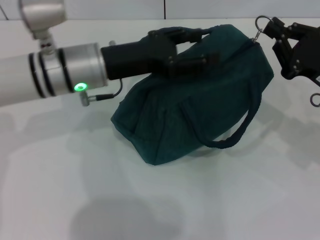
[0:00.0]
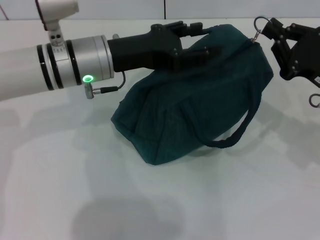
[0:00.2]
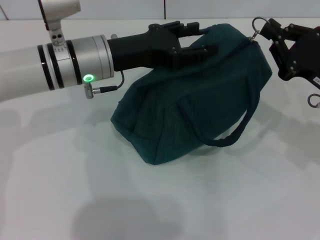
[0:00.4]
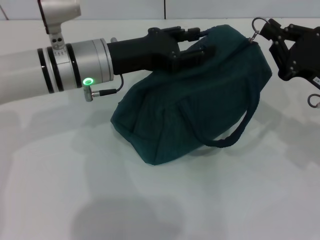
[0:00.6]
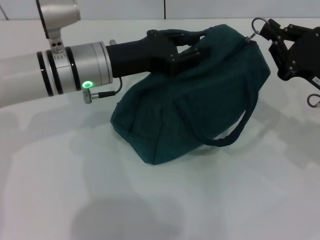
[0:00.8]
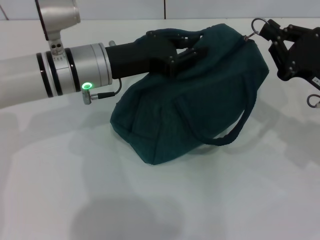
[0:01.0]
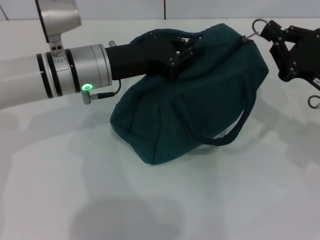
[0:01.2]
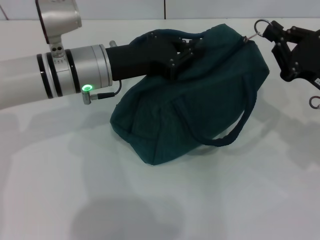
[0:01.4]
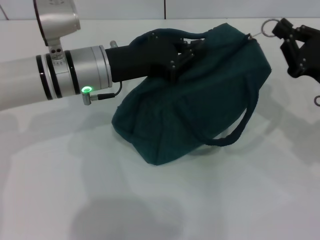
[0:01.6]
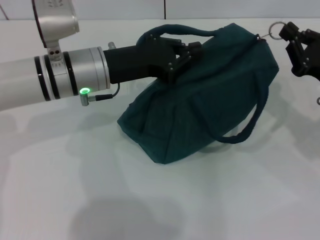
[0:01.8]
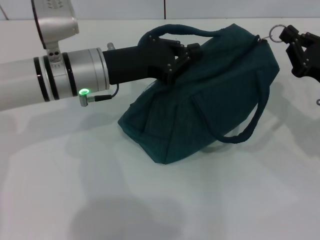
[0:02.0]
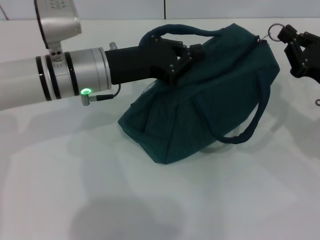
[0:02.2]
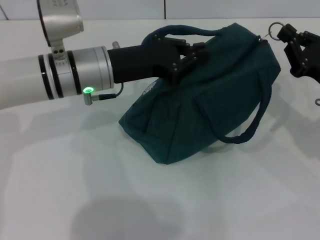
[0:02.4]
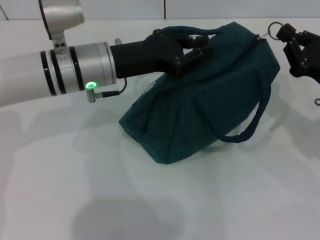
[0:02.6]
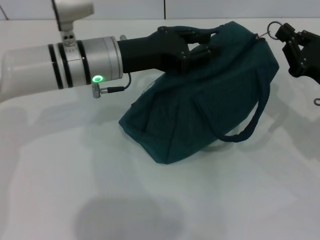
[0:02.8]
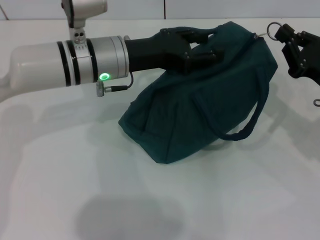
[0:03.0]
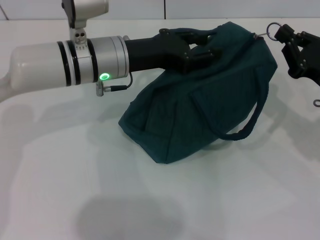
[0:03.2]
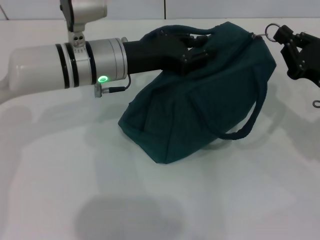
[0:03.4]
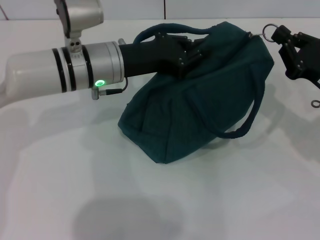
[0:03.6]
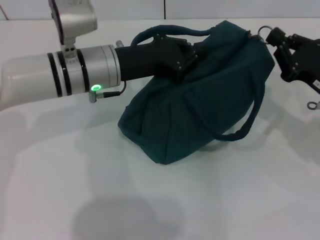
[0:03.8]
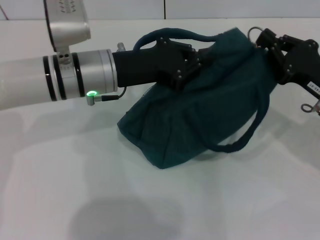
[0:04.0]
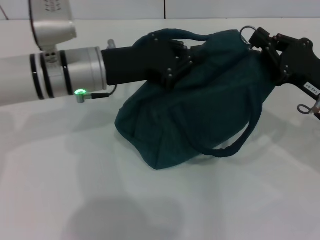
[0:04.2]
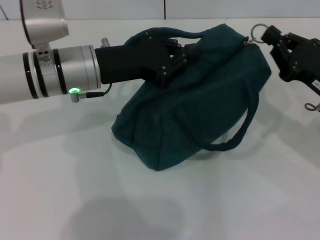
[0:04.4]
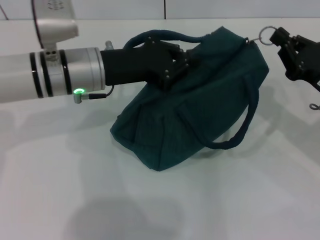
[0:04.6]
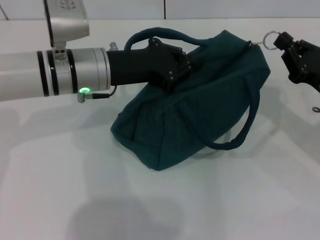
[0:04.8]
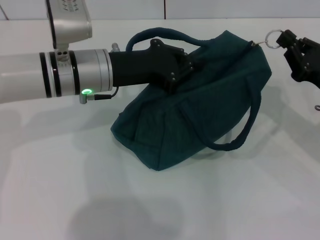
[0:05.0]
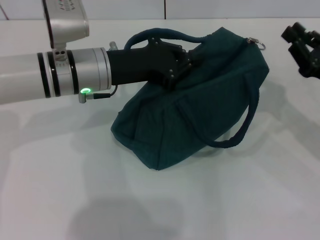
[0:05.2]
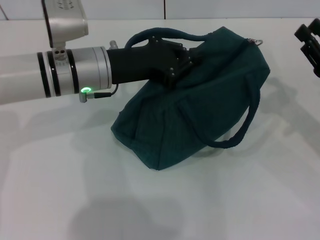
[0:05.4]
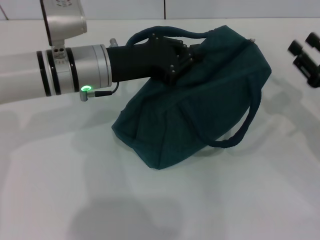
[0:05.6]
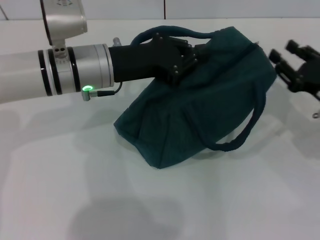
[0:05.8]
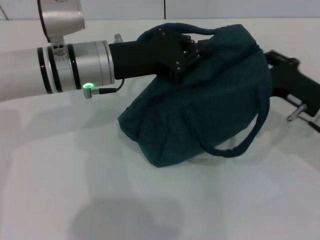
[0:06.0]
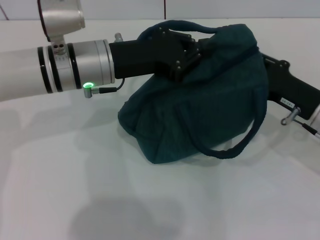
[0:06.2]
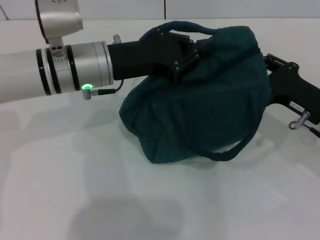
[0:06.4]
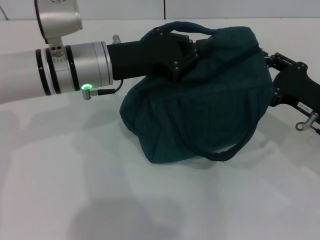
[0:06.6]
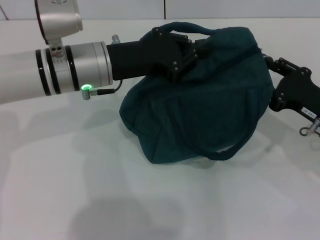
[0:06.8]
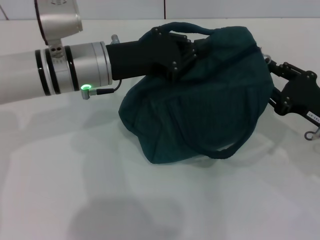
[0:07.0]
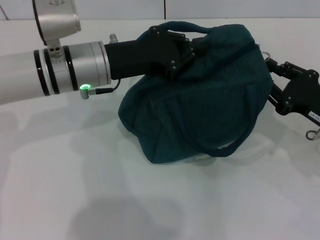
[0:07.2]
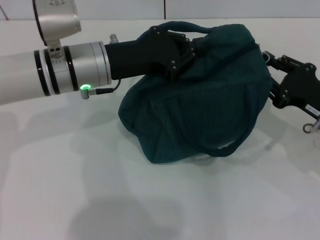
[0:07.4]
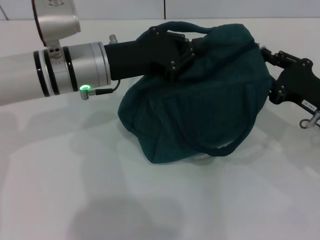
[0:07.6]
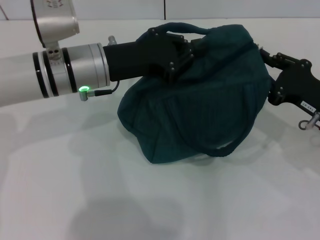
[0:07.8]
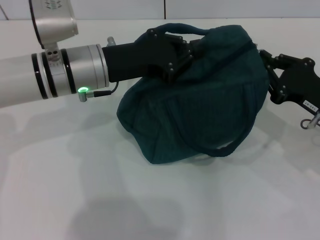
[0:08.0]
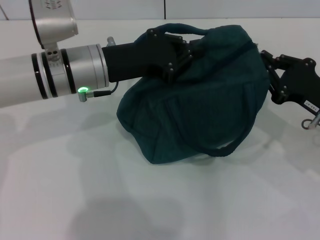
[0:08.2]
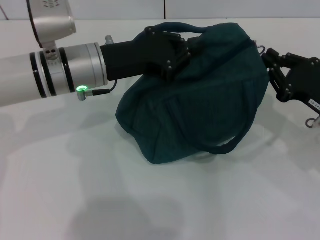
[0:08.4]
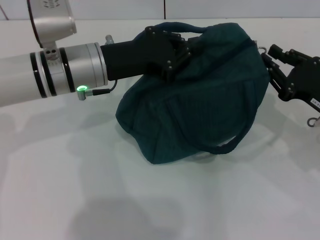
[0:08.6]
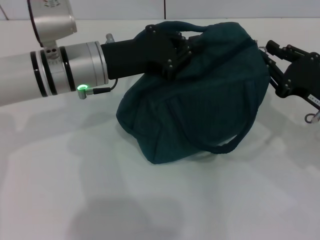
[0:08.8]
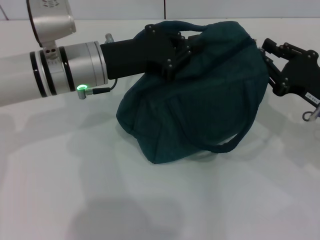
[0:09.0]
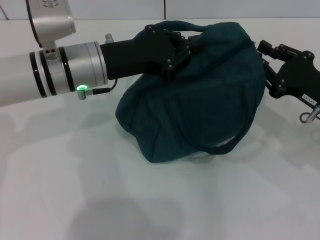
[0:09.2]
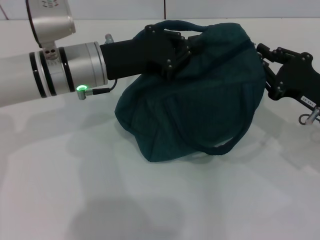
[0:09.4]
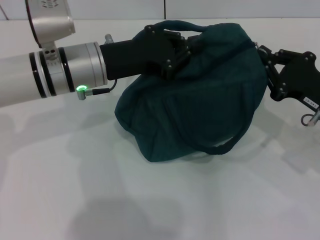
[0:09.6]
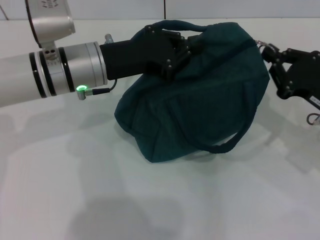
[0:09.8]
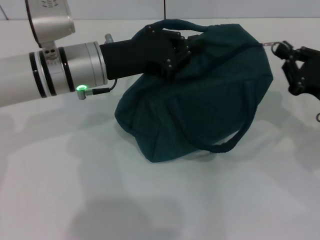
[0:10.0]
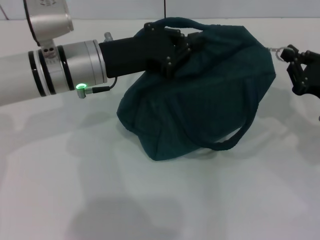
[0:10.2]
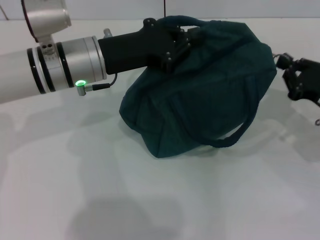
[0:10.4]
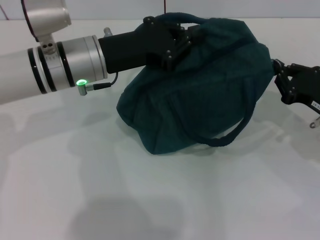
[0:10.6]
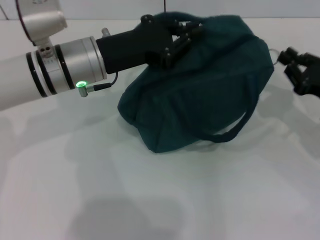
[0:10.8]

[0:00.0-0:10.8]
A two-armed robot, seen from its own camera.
Step, 0:00.0 to 0:10.6: Hold the lunch bag with your left hand.
0:00.0 to 0:01.6: The left gripper closes its fingers.
0:01.6 to 0:03.0: The left gripper opens its fingers.
0:03.0 to 0:04.6: The left gripper closes.
0:04.6 to 0:06.2: The right gripper opens up.
0:06.2 to 0:07.8: The grippers stay close to where they were, moving slightly.
0:07.8 to 0:09.2: Both grippers stay about where they are.
0:09.2 to 0:10.8: The grippers move only a little.

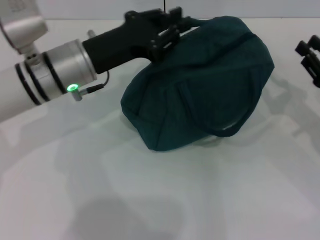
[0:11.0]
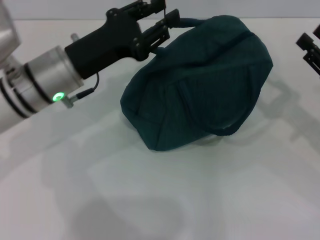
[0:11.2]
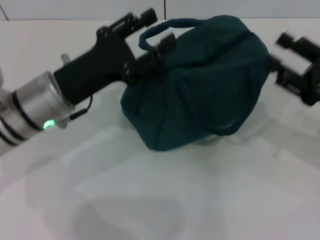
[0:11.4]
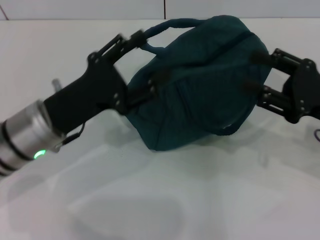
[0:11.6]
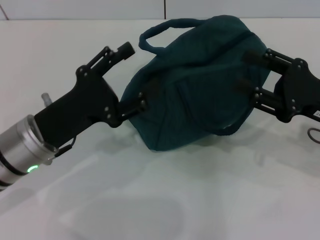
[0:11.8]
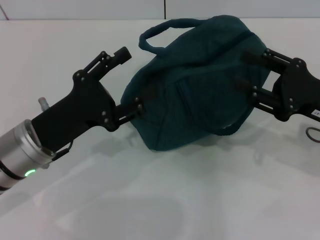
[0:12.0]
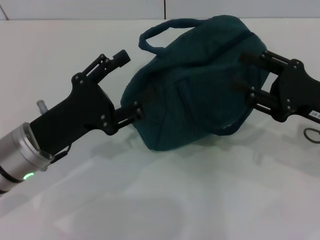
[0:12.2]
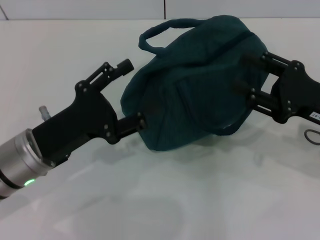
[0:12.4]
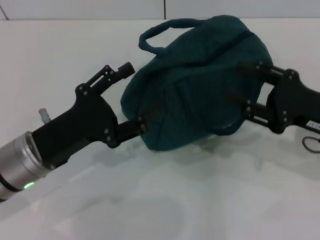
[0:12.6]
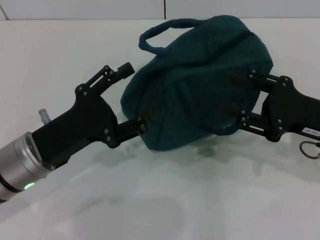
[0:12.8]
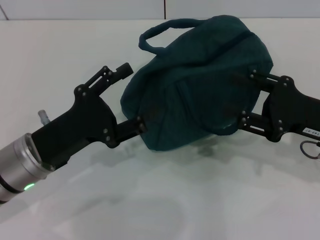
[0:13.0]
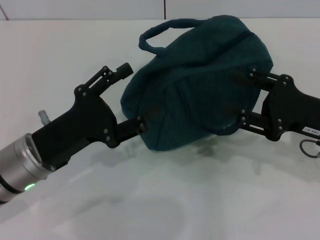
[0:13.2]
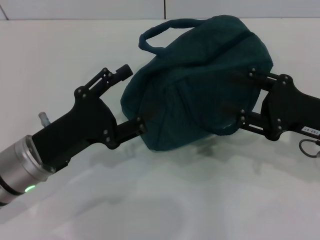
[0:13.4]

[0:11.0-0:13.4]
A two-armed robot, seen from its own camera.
0:11.0 to 0:12.2: The left gripper goes approximately 10 cm backward, and opens; the right gripper moves to the left, about 5 cm, and opens.
0:12.2 to 0:13.4: The grippers stay close to where they were, moving slightly.

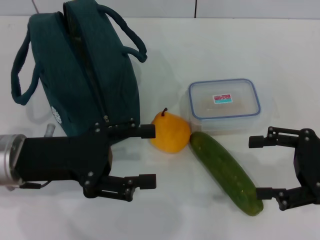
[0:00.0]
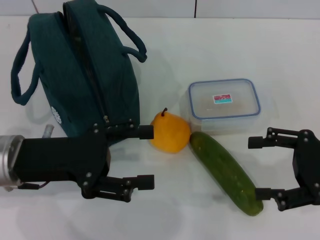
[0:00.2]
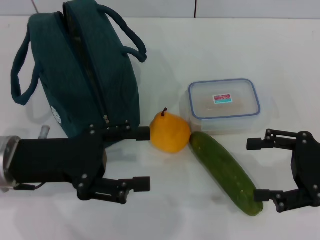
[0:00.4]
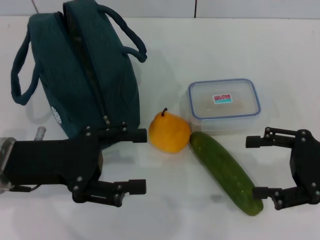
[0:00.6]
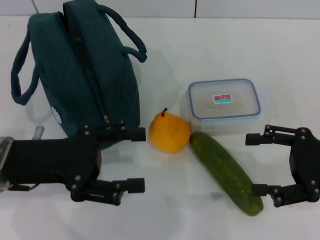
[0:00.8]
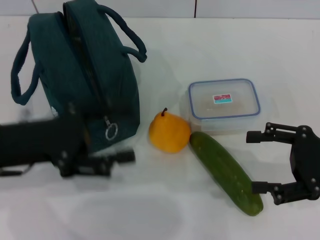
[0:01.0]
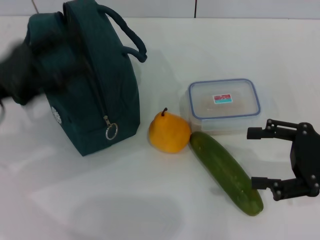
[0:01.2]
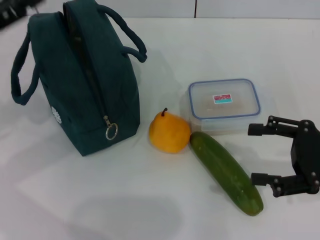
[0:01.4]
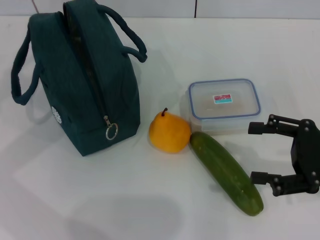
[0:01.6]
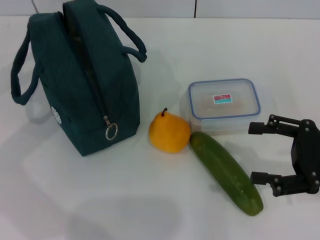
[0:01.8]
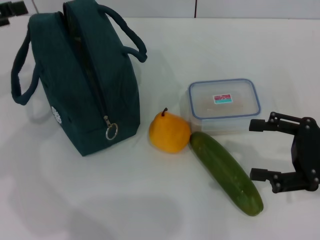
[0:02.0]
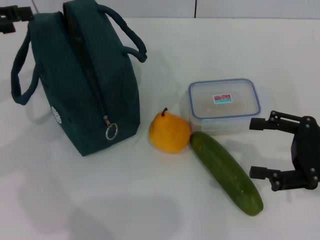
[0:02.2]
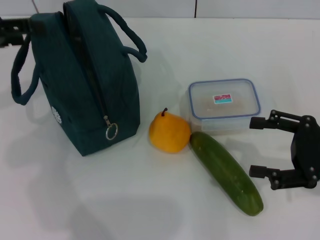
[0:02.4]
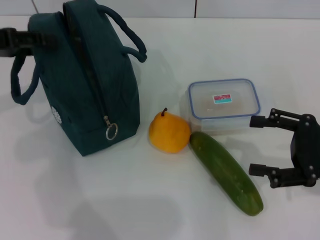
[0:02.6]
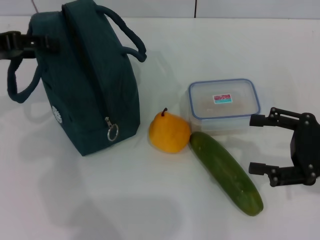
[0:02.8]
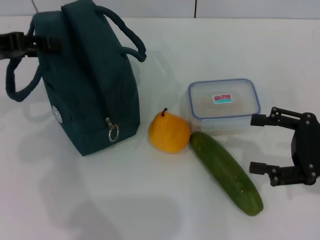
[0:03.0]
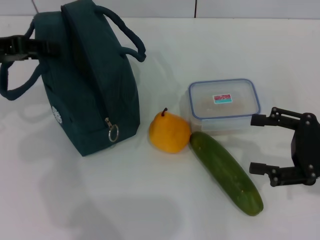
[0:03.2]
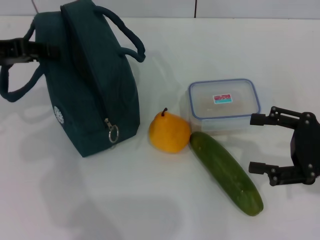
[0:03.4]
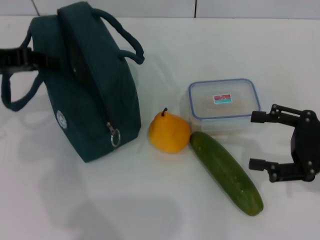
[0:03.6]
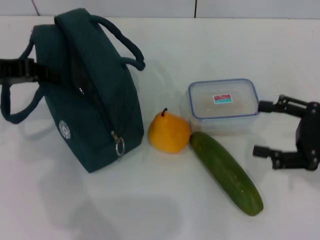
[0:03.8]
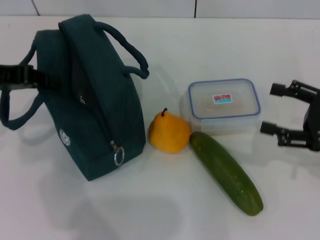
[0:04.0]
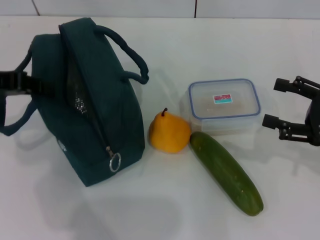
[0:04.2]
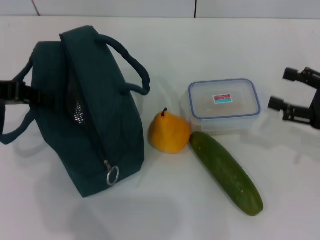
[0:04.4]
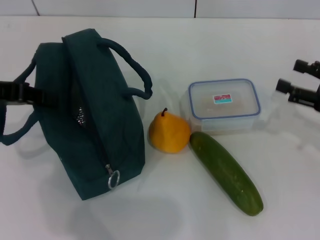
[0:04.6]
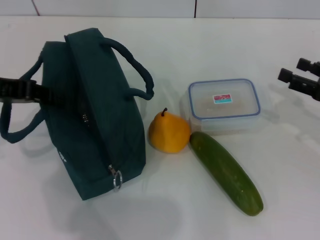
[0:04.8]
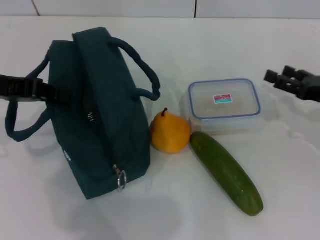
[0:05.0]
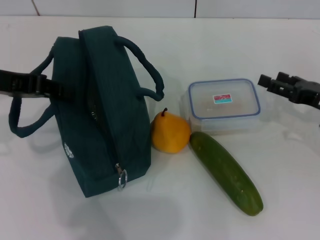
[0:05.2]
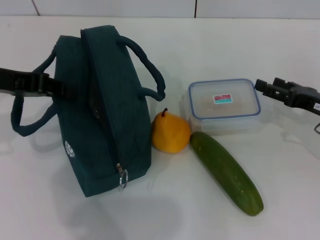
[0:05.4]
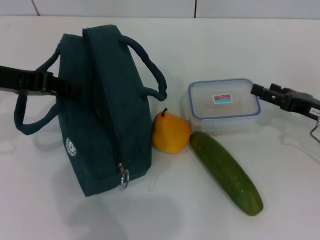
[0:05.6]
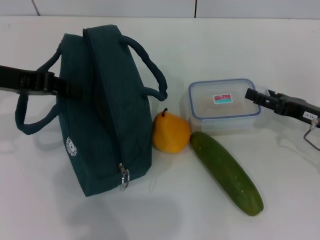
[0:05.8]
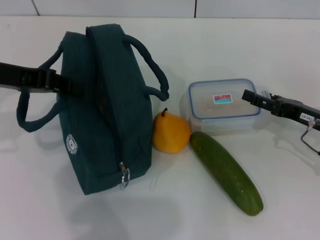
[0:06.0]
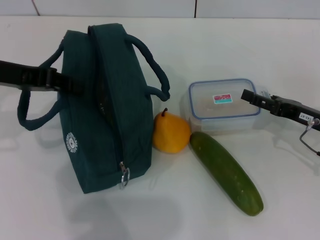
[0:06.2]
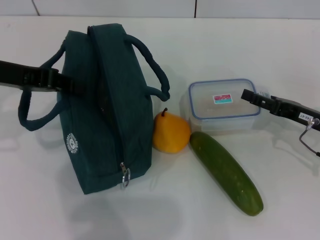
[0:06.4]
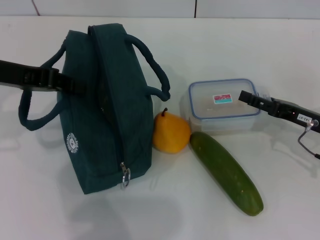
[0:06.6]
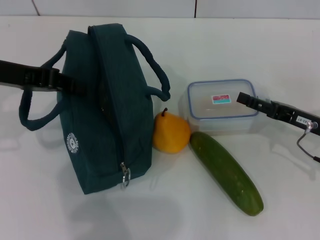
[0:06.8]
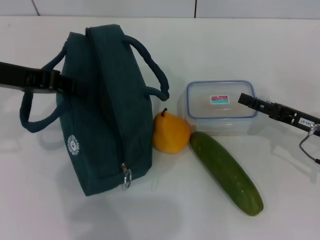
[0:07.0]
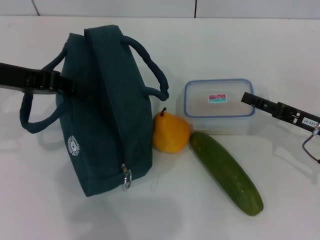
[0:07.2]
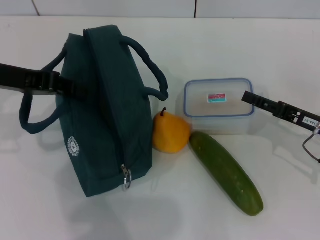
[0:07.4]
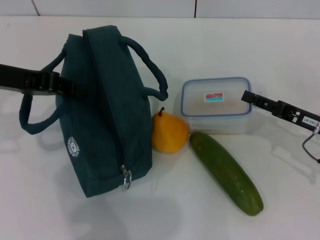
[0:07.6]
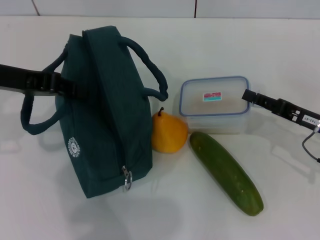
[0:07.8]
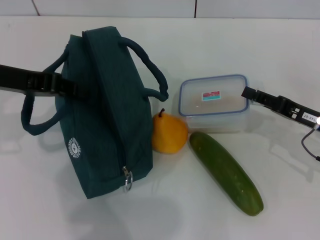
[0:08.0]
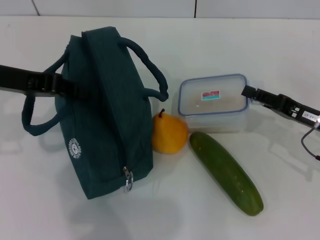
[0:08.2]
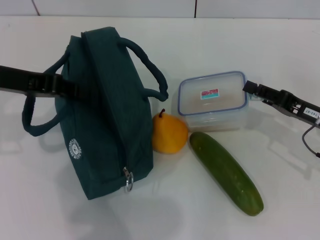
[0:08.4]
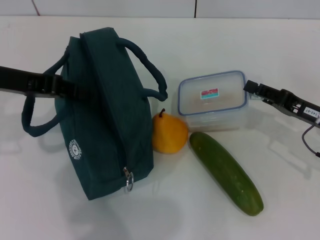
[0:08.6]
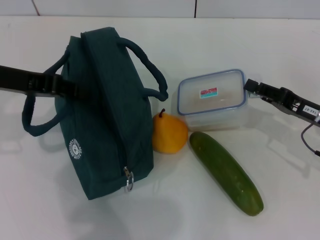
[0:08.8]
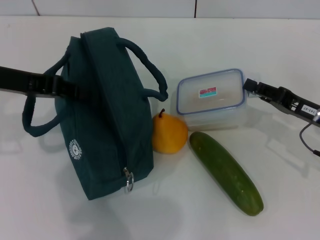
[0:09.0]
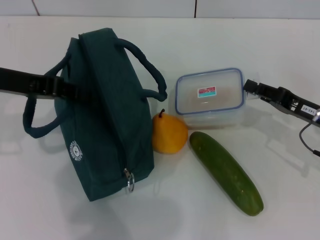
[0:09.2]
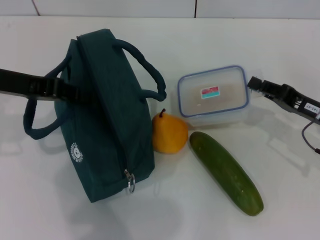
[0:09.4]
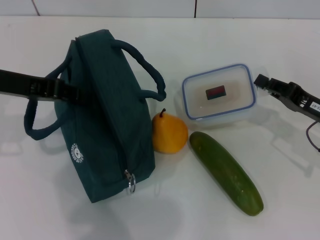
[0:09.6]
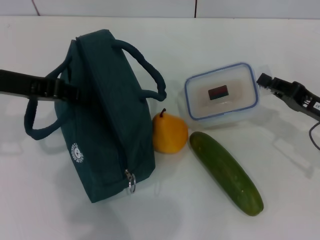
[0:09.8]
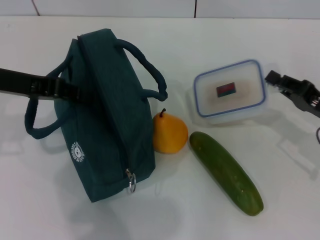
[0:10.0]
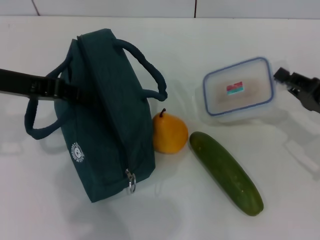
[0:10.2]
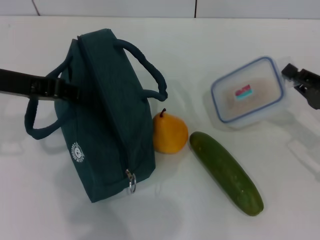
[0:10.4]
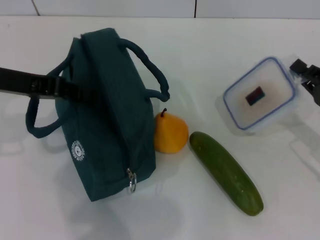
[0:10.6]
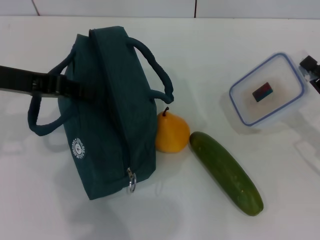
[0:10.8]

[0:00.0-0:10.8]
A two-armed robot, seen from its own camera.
Step, 0:00.0 to 0:03.8: Hold the lunch bag with your left hand.
Step, 0:04.2 to 0:09.6: Pick up the lunch box with your right hand.
0:00.0 to 0:01.6: The left gripper is displaced to the left, forward and upward by about 15 cm.
0:03.0 to 0:04.6: The left gripper closes up. Meanwhile the right gripper shifts by about 5 cm.
0:04.6 to 0:06.2: The right gripper is displaced downward and to the left by about 5 cm.
0:06.2 to 0:07.8: The right gripper closes.
0:07.8 to 0:09.2: There are only small adjustments of the grippers.
0:09.2 to 0:10.8: The right gripper shifts by roughly 5 cm.
